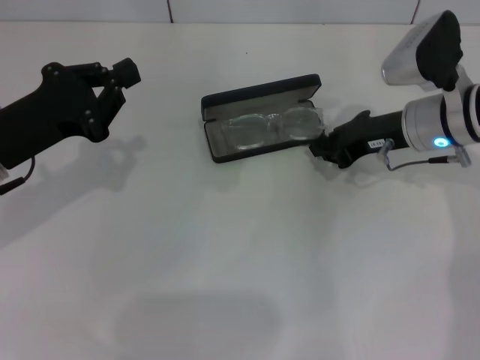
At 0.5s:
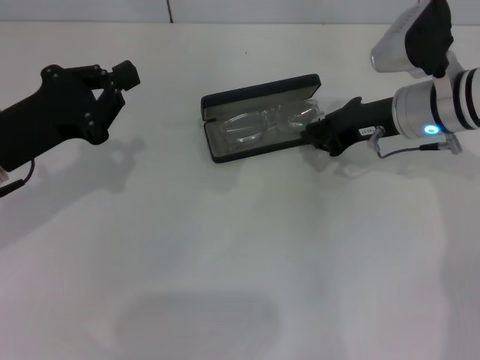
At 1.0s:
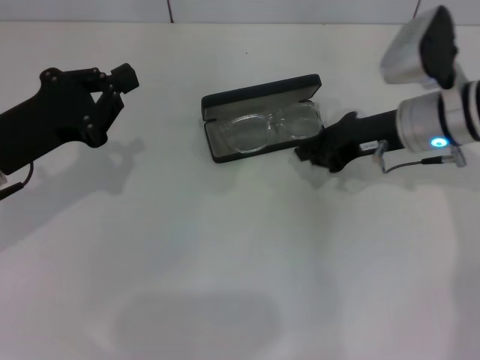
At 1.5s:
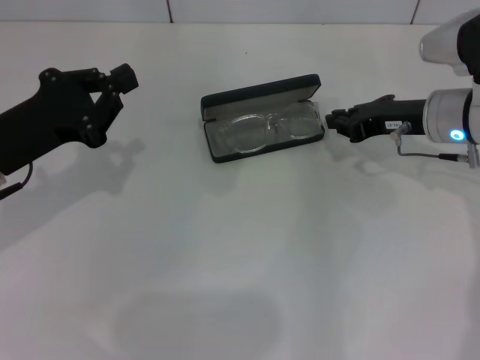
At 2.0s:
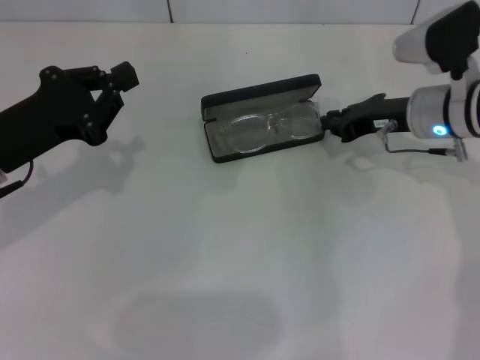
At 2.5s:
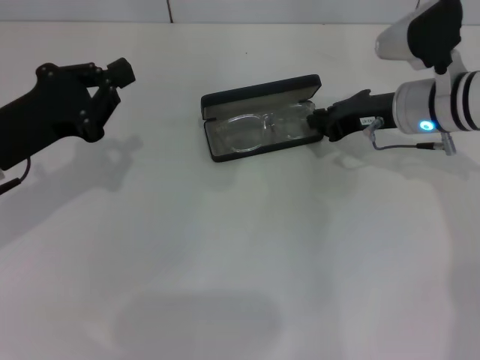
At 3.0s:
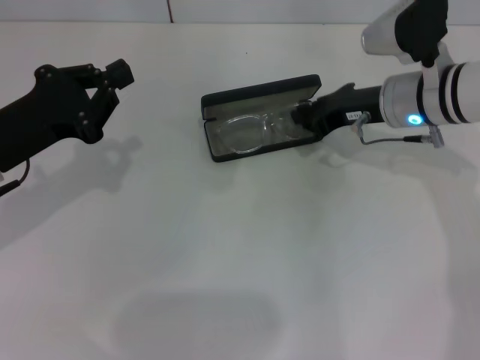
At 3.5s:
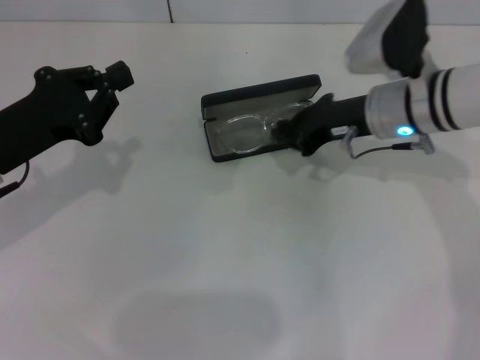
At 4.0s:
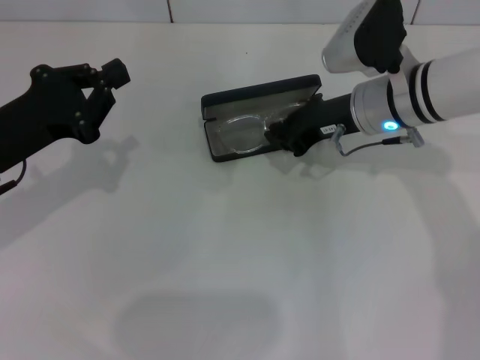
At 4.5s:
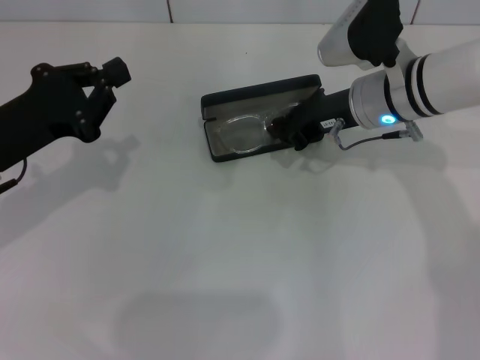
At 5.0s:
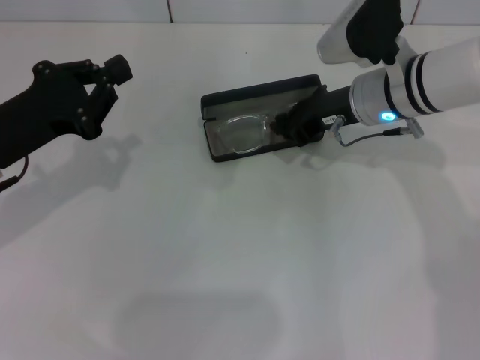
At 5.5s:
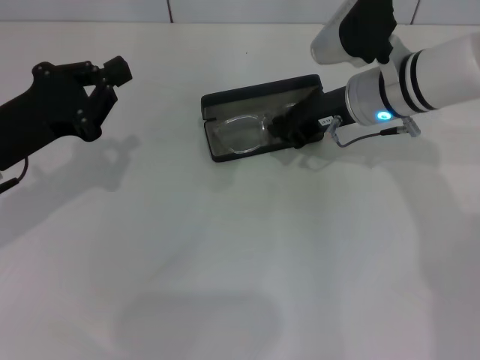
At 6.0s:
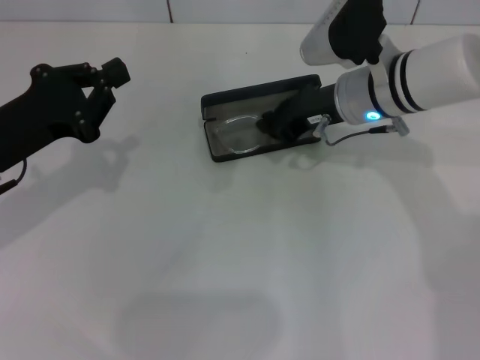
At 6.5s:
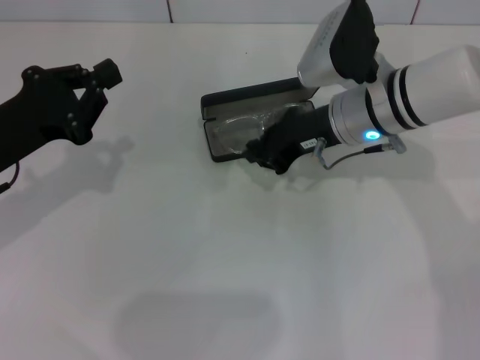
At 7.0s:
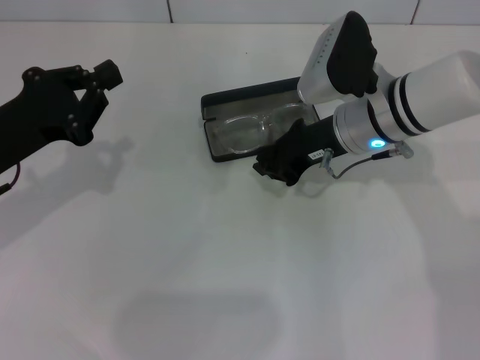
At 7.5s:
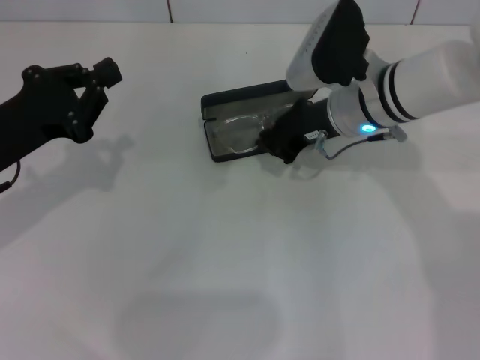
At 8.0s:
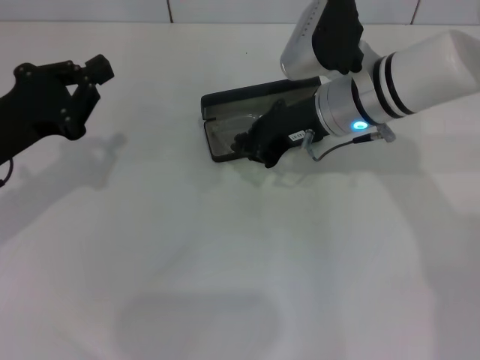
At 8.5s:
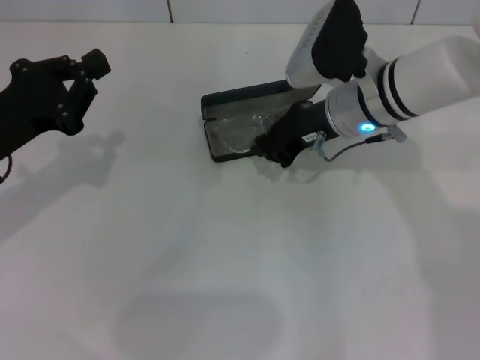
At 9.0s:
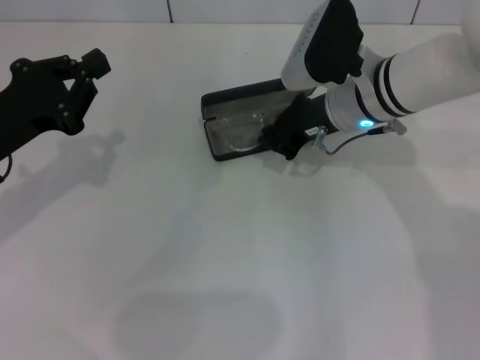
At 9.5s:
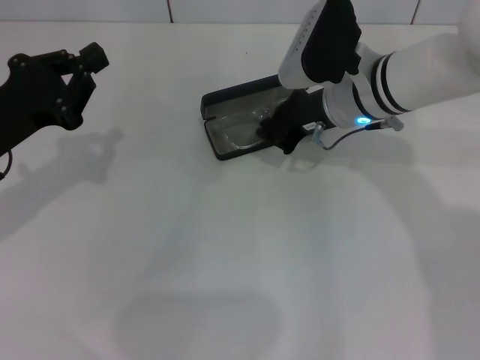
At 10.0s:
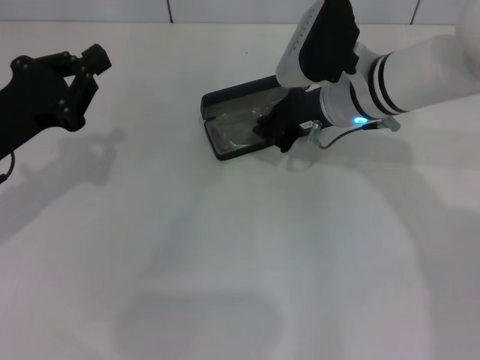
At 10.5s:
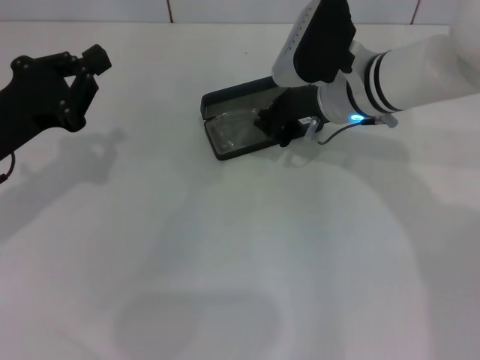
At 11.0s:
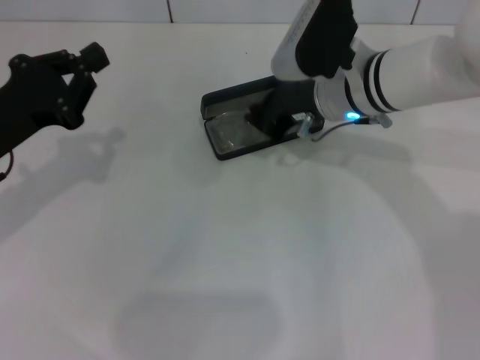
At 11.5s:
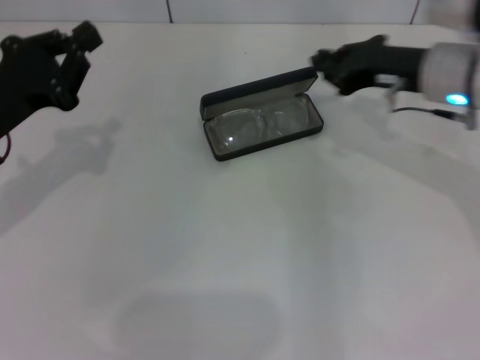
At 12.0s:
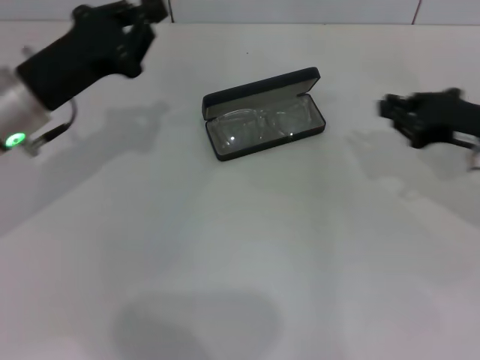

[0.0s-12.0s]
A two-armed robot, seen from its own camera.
0.0s to 2.0s: There are only small adjustments of the grippers.
2.0s to 4.0s: The right gripper shifts roughly 5 cm to the left.
4.0s to 10.0s: The grippers move only a little.
10.0s to 12.0s: The right gripper travels to the right and backward by approximately 20 cm, while the left gripper ends up roughly 5 cm from where it was.

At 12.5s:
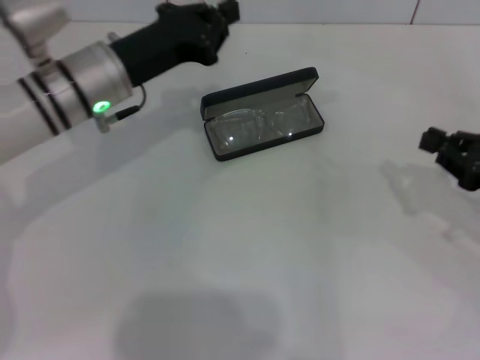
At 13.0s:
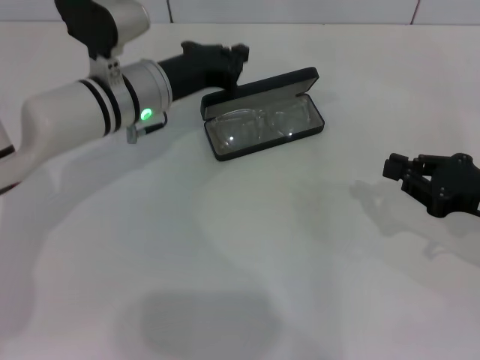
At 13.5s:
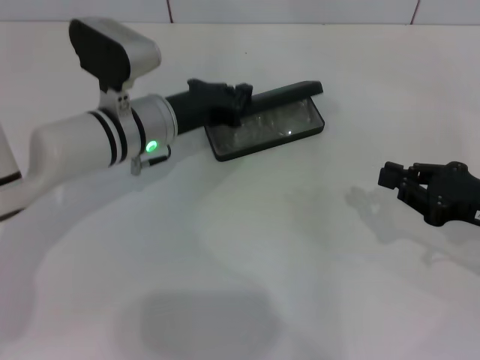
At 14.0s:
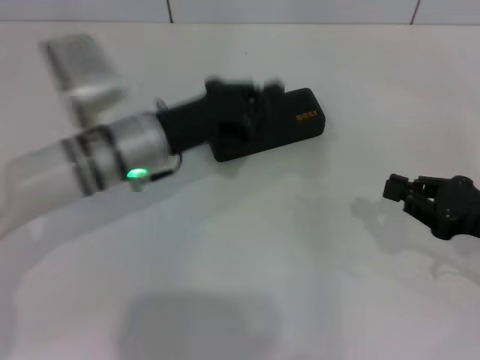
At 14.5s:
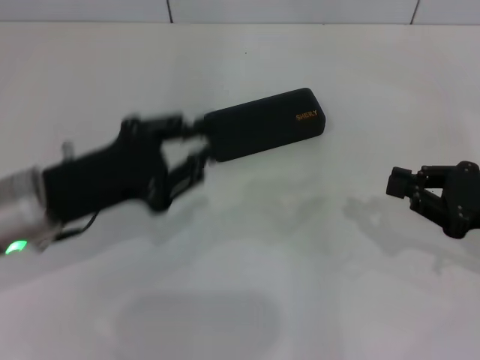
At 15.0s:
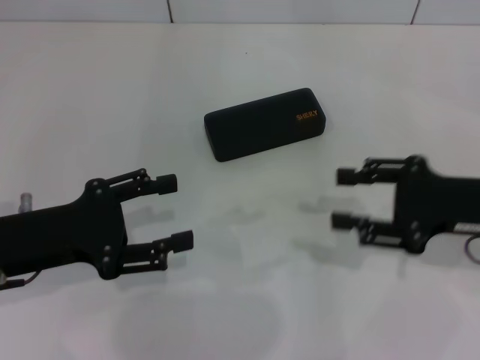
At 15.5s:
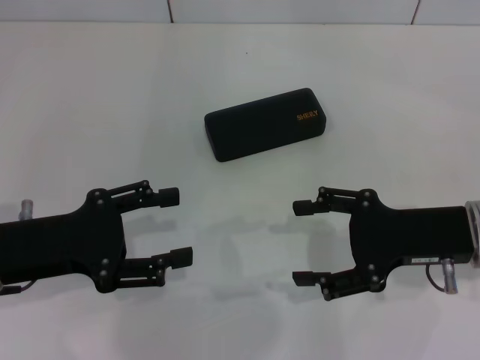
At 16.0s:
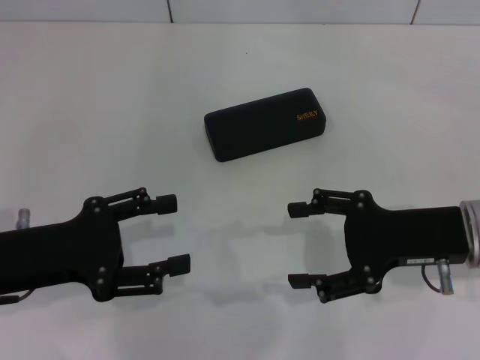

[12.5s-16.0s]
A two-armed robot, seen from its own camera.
12.5s to 14.5s: The left gripper moves backward and to the left, about 15 cm.
14.5s to 16.0s: The left gripper shifts by approximately 5 cm, and opens its fingers. Meanwhile the right gripper shifts roughly 10 cm to the left, and opens up.

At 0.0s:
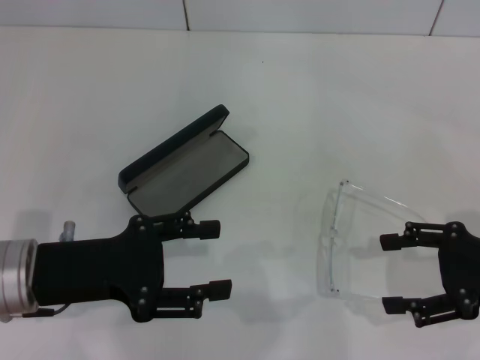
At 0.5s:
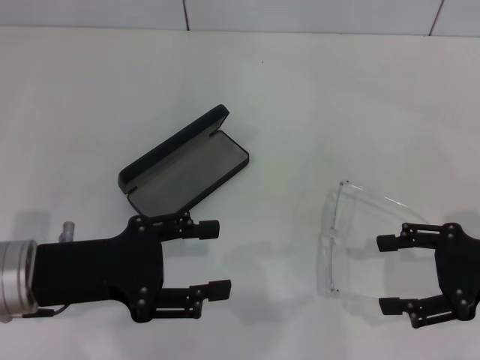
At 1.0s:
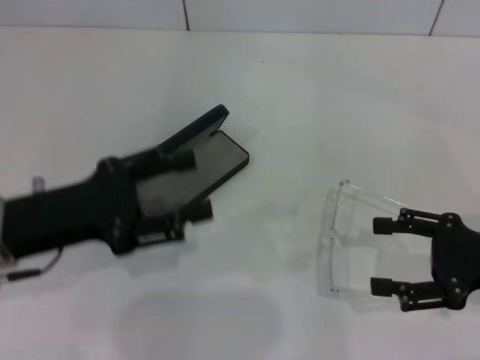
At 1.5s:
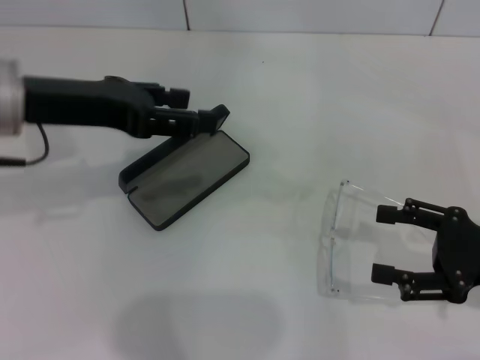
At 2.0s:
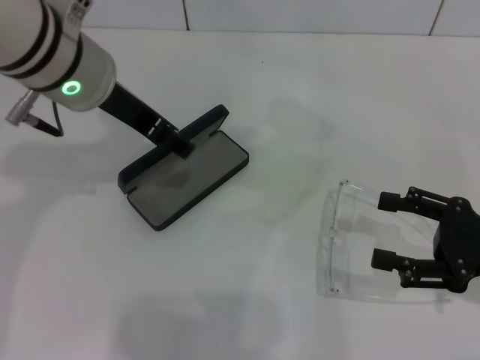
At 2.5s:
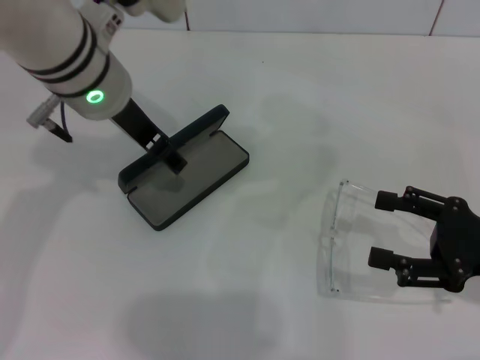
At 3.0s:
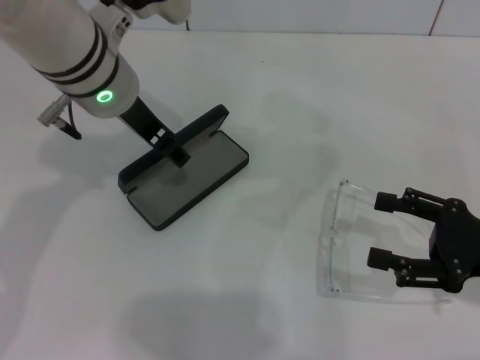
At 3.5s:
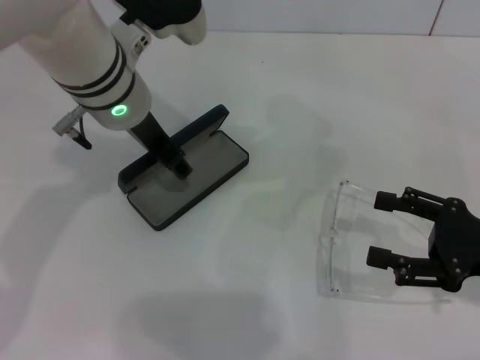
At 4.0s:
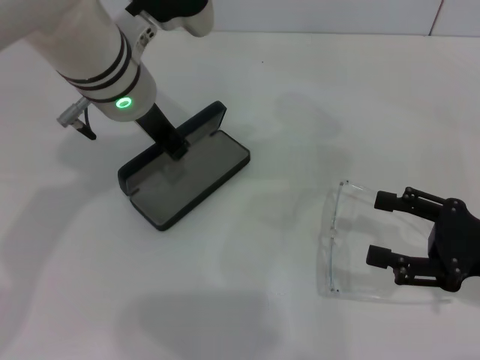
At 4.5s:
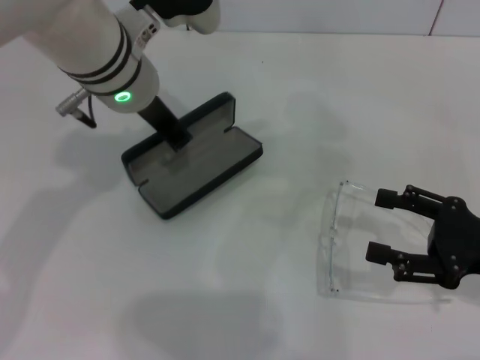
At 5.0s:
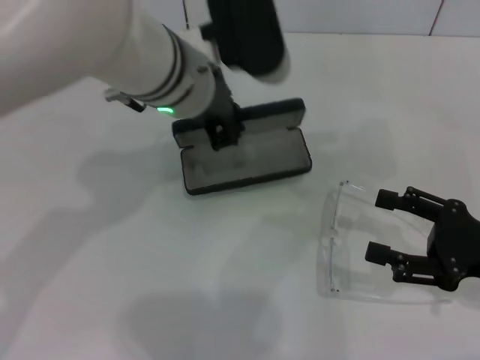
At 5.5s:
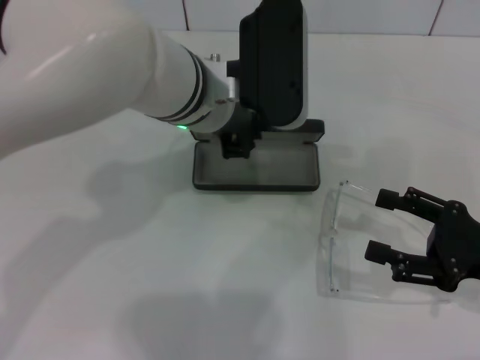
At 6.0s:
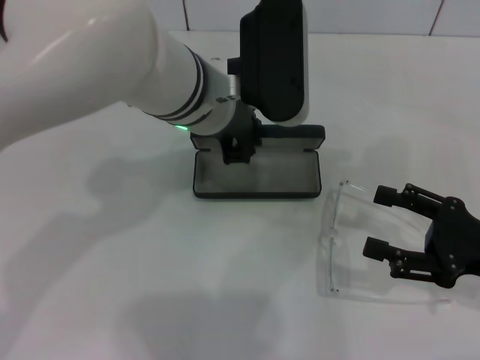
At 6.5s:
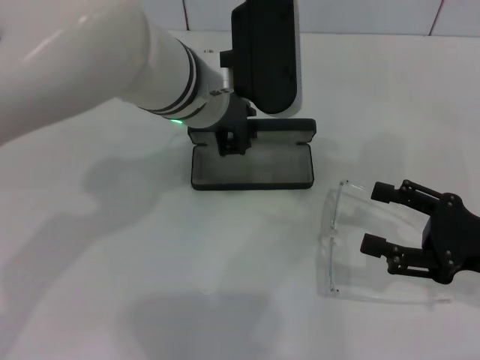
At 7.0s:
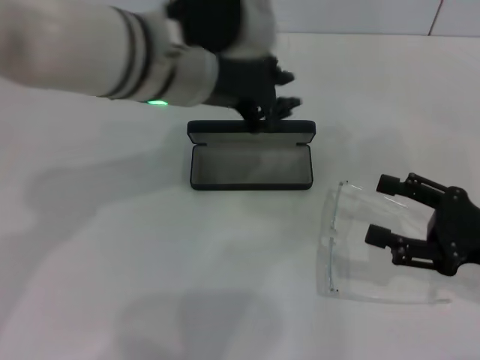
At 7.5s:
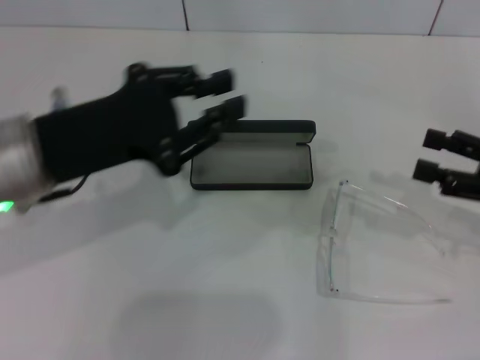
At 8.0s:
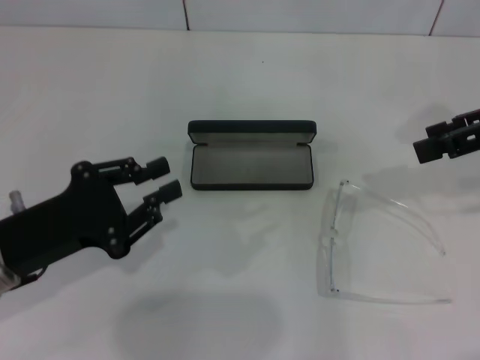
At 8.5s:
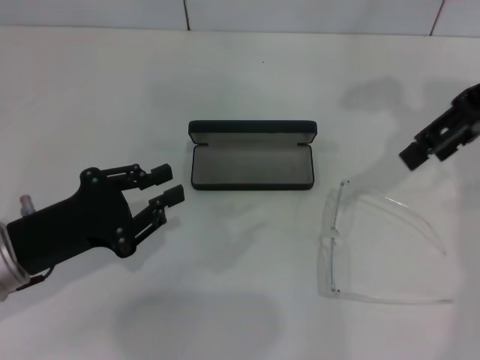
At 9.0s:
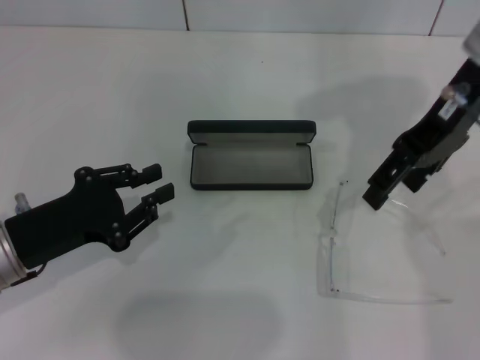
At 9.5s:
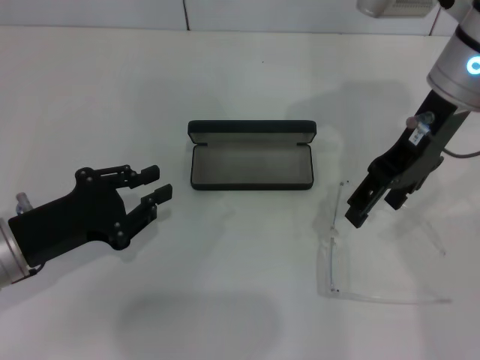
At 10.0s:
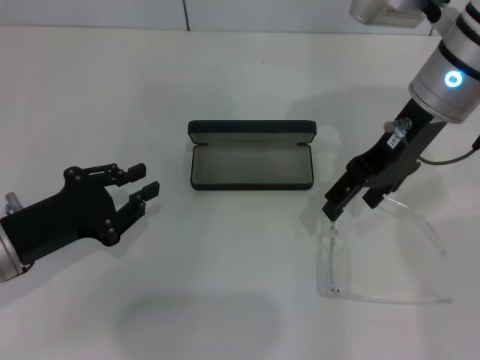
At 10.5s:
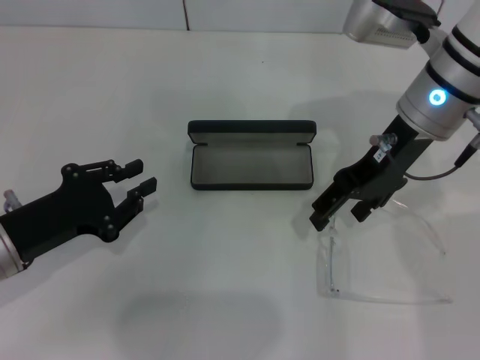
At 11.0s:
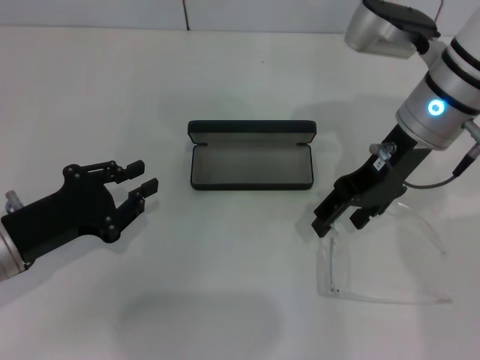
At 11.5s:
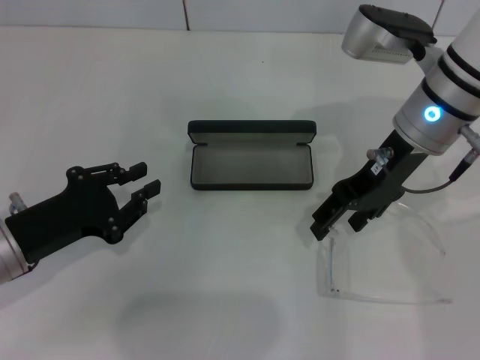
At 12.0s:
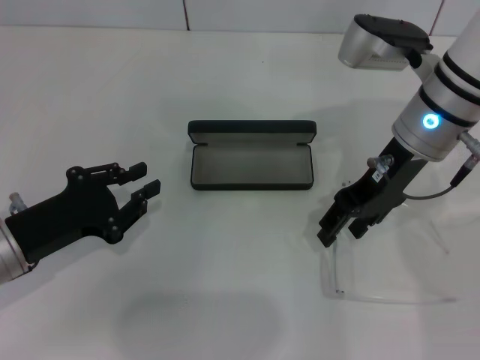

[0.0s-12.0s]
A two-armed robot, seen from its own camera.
Step, 0.0s to 3.5s: Grab the glasses case with your left hand.
Step, 4.0s to 6.5s: Place the glasses case in the center of the table with your left hand.
0.0s to 2.0s: The left gripper shifts approximately 20 cm forward, upward and to the right.
2.0s to 4.0s: The left gripper changes place by some 5 cm.
4.0s to 6.0s: The left gripper goes roughly 5 cm to the right, and closes.
6.0s to 8.0s: The right gripper heads upward and forward, covering roughly 20 cm; the left gripper goes about 25 cm to the left, backward and downward.
8.0s to 10.0s: The right gripper moves to the left and forward, some 15 cm.
10.0s to 12.0s: The grippers move only a little.
